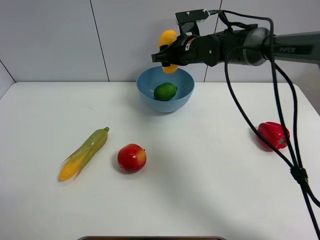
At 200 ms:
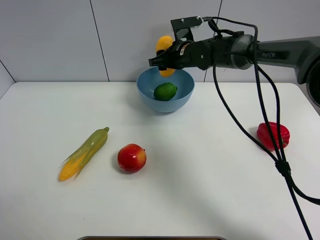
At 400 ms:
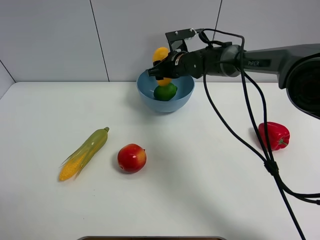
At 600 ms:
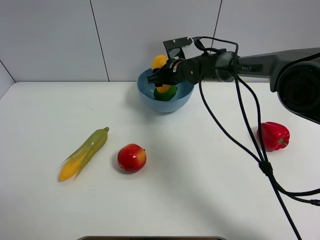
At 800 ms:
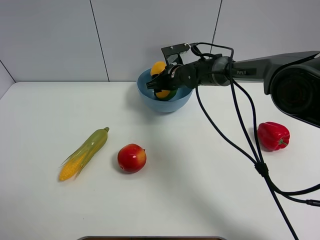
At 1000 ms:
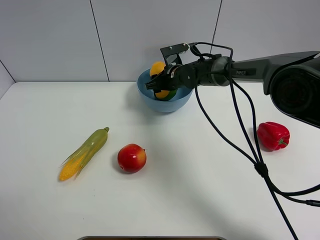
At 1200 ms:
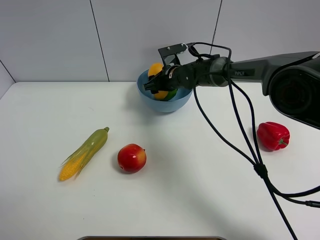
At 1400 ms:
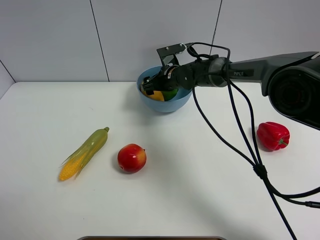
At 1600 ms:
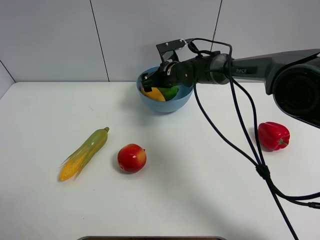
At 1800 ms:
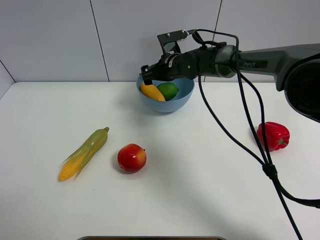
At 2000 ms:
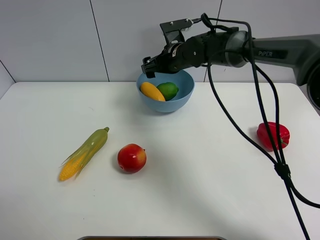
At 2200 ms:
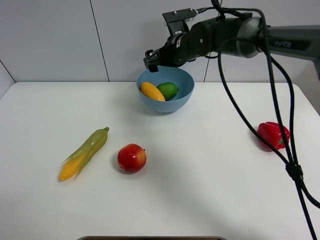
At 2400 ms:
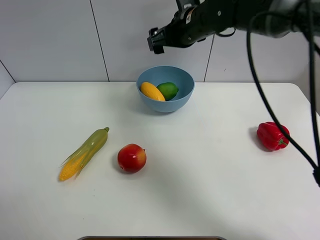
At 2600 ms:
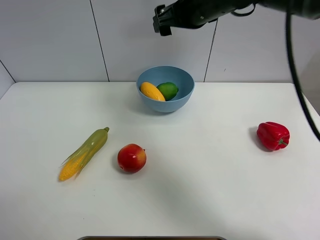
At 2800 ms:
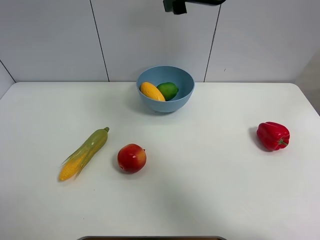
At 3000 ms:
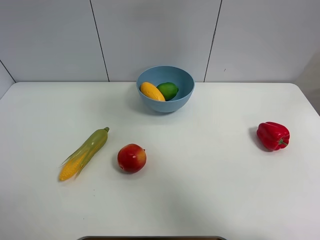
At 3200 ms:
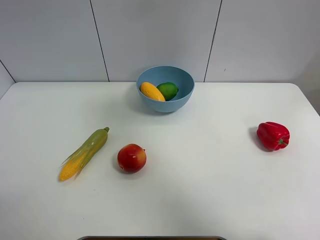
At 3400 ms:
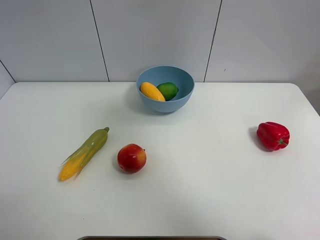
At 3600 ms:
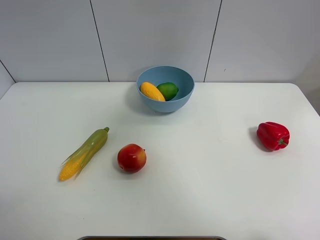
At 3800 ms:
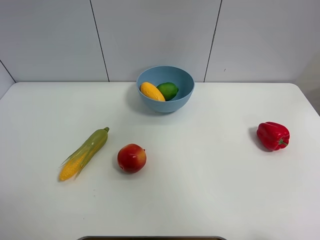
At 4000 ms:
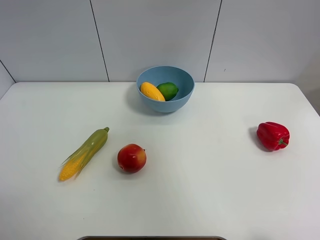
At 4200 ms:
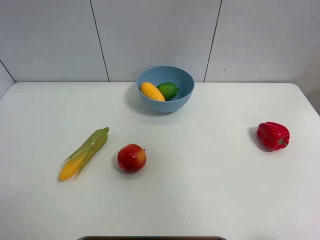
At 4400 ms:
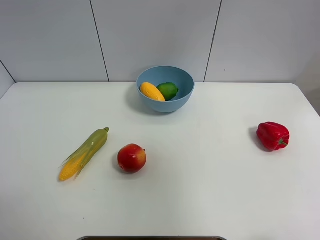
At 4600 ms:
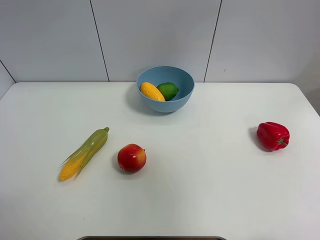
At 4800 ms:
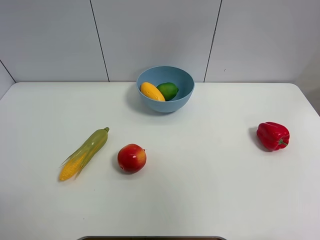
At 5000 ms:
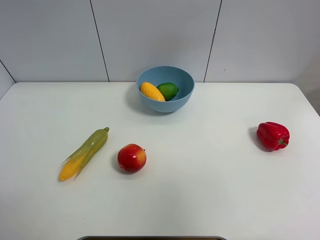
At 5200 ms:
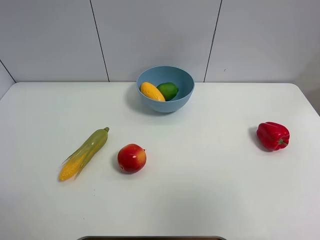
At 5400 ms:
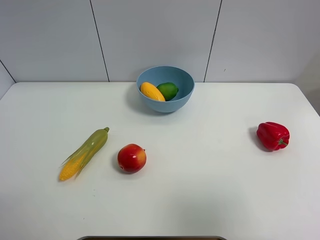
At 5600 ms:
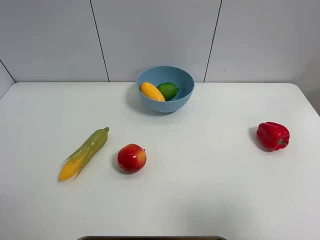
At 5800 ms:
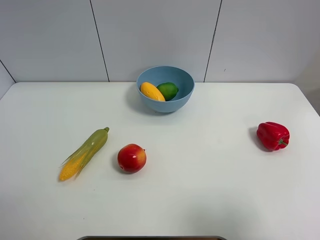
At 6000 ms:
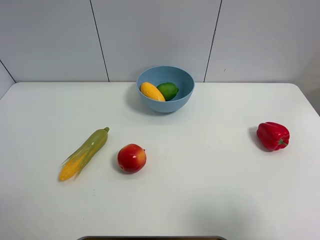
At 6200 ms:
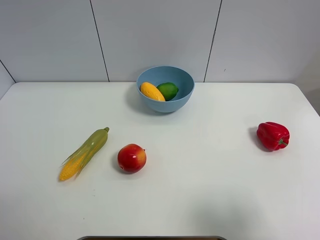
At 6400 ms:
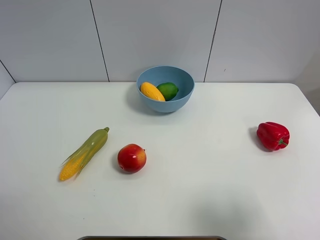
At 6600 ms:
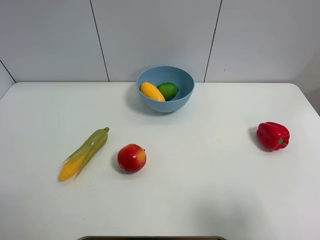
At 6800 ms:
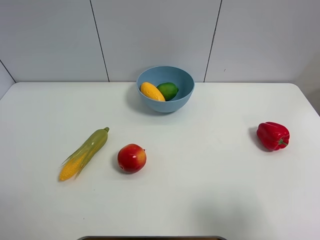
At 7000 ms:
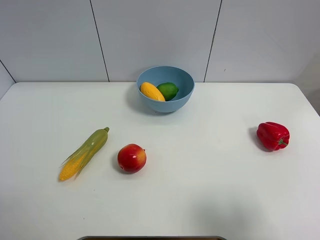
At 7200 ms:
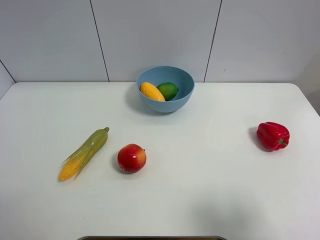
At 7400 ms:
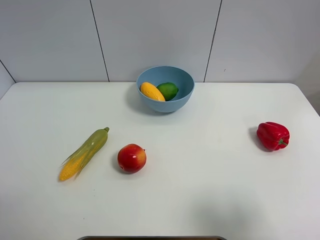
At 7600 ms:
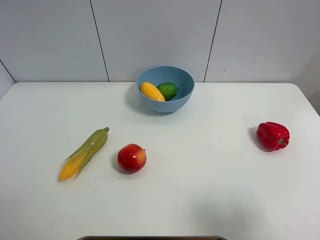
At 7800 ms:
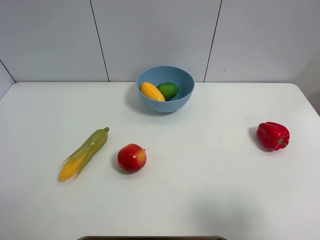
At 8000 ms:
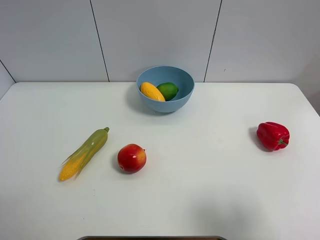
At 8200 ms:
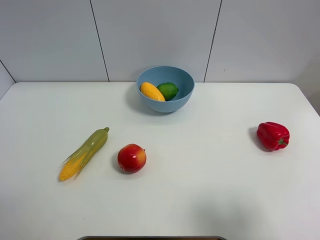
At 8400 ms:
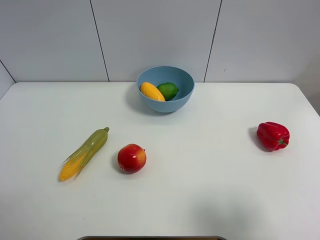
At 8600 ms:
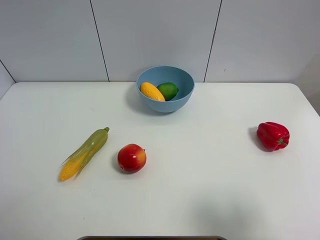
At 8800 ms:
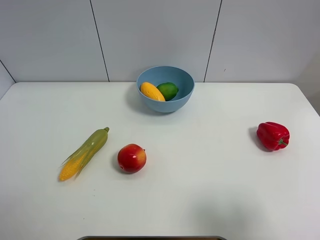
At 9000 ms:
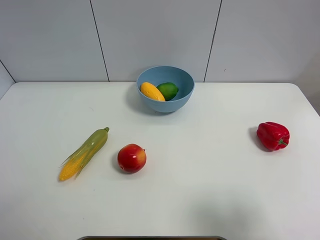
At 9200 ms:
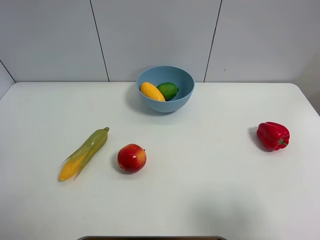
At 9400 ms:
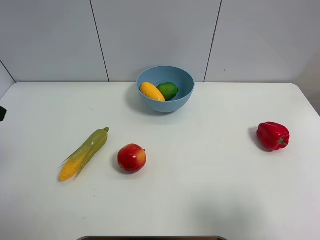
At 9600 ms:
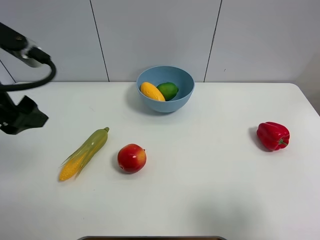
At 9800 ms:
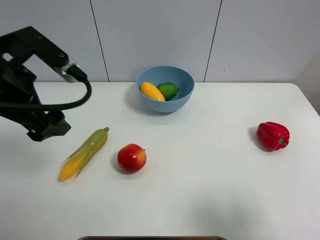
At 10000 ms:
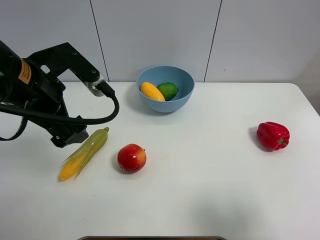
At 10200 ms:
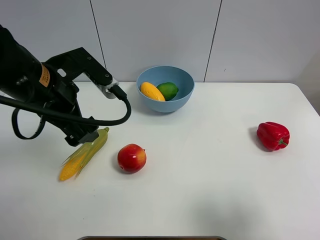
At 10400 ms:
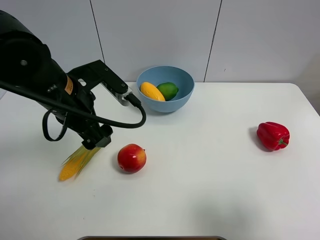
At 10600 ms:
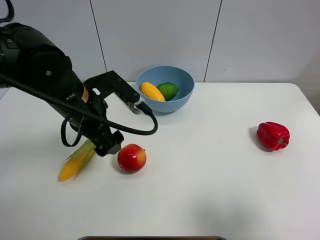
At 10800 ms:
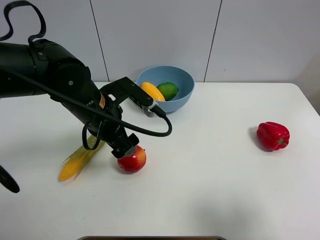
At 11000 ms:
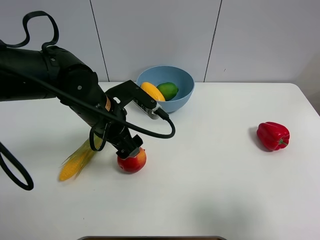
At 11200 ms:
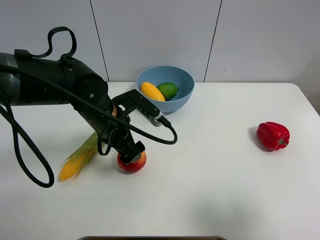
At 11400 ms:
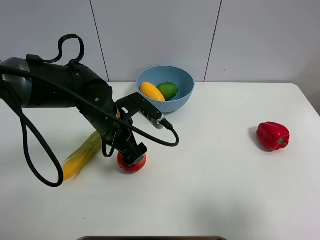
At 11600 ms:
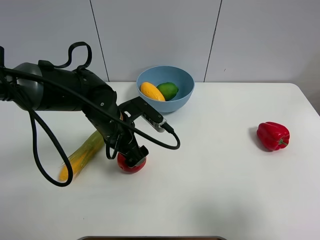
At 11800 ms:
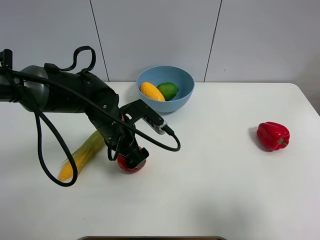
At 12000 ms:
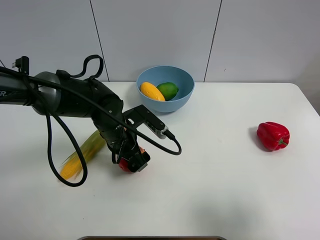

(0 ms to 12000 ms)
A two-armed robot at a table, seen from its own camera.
Task of the whole recording: Put the three fruits on the table into a bowl.
0 ms - 1600 ms: The right gripper moves downward, roughly 5 cm, and opens.
1600 ms - 3000 ms: The right gripper moves upward and backward, approximately 30 cm.
3000 ms - 4400 ms: The right gripper goes some 30 cm backward and to the right.
4400 ms - 6000 ms: The right gripper shifts roughly 25 cm downward.
6000 ms - 7600 ms: Both grippers stay put.
9000 ms - 10400 ms: The left gripper travels to the right, forward and downward by some 25 cm.
10400 ms - 12000 ms: The left gripper heads downward and to the right, covering about 15 cm.

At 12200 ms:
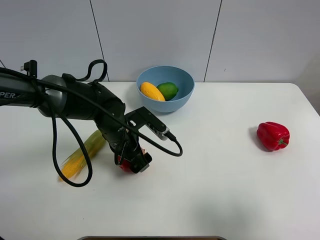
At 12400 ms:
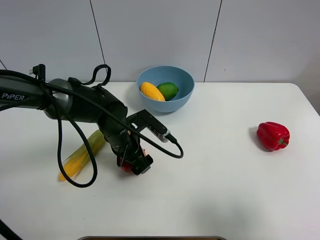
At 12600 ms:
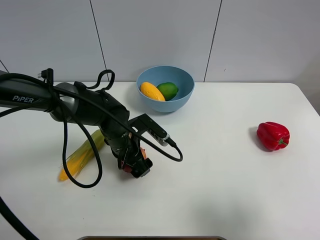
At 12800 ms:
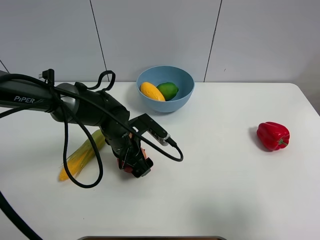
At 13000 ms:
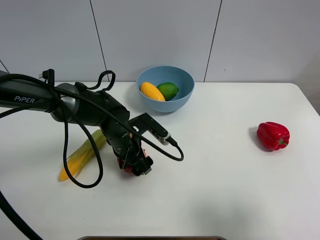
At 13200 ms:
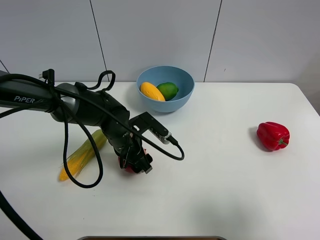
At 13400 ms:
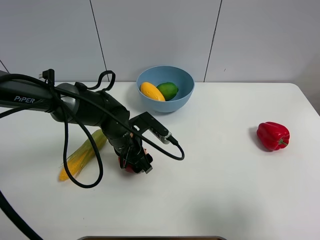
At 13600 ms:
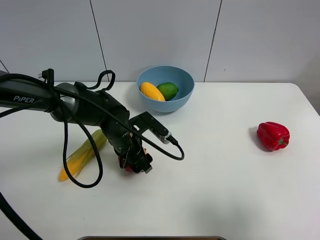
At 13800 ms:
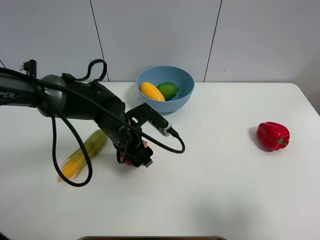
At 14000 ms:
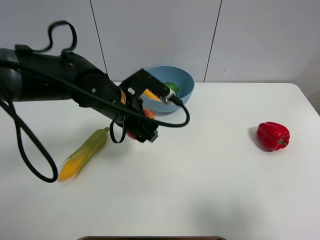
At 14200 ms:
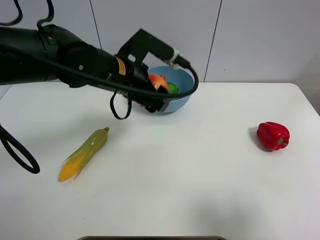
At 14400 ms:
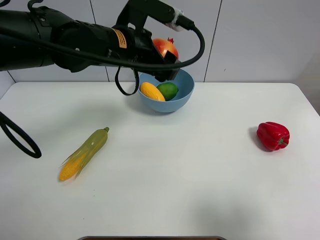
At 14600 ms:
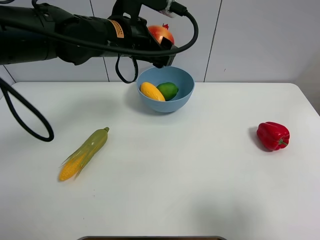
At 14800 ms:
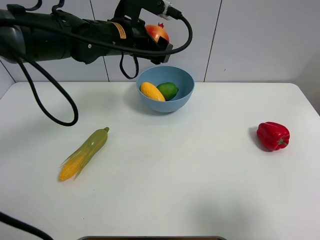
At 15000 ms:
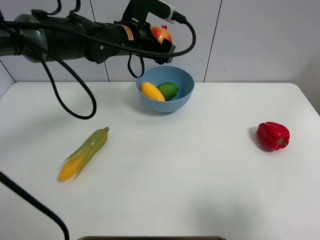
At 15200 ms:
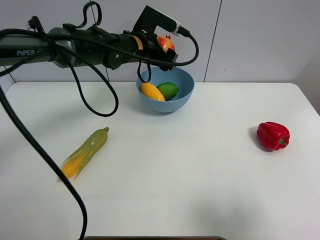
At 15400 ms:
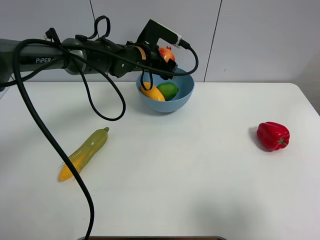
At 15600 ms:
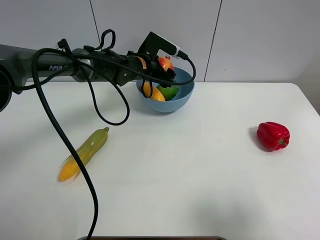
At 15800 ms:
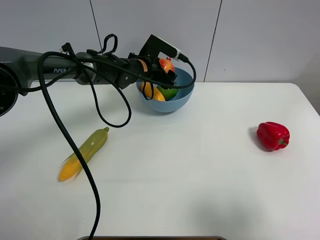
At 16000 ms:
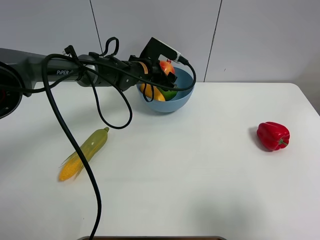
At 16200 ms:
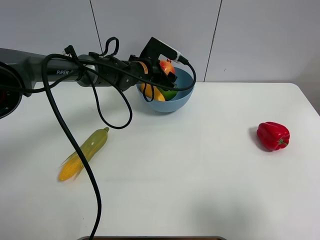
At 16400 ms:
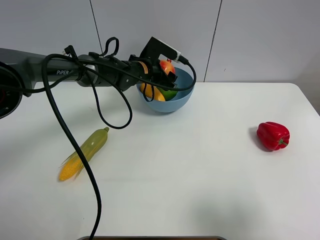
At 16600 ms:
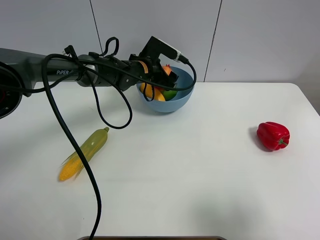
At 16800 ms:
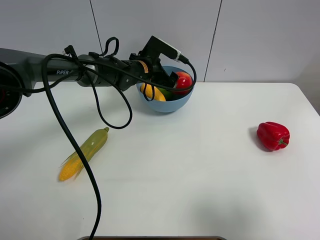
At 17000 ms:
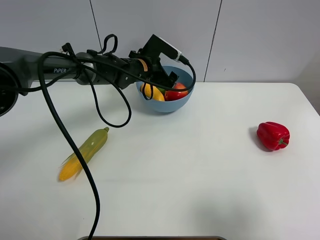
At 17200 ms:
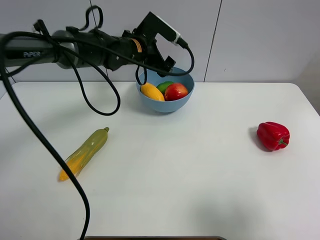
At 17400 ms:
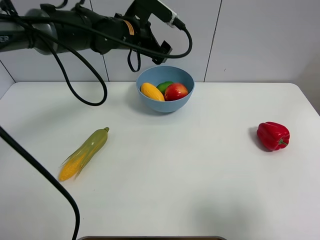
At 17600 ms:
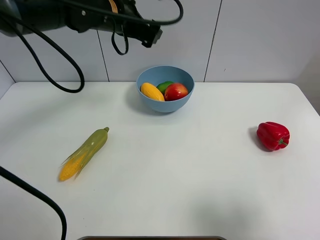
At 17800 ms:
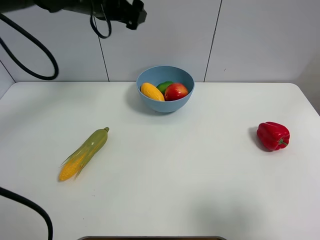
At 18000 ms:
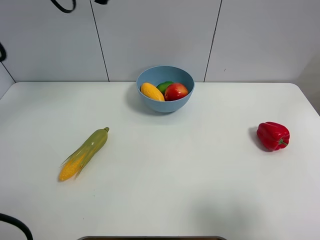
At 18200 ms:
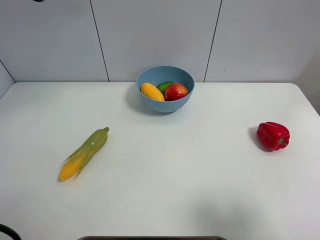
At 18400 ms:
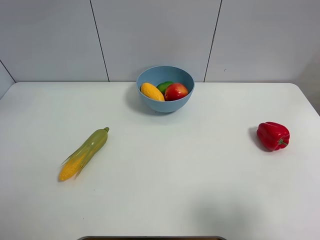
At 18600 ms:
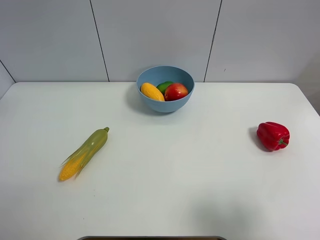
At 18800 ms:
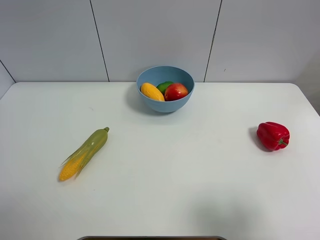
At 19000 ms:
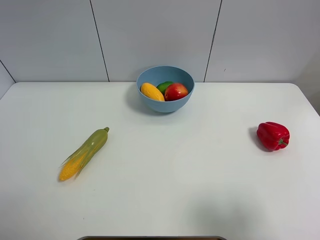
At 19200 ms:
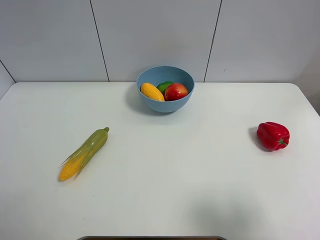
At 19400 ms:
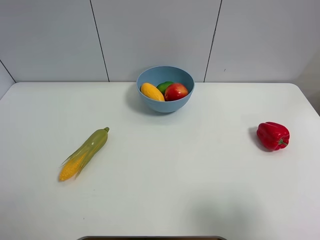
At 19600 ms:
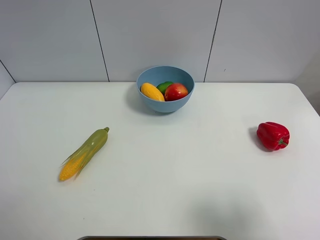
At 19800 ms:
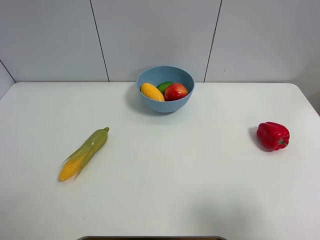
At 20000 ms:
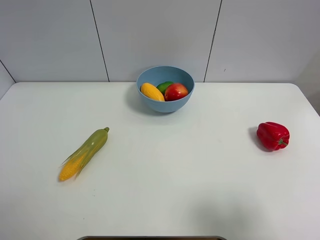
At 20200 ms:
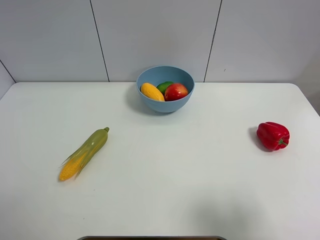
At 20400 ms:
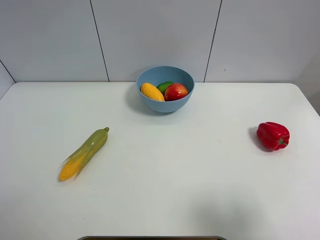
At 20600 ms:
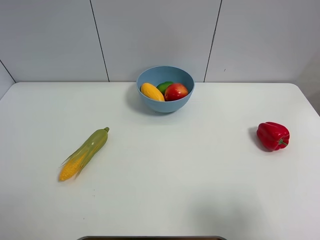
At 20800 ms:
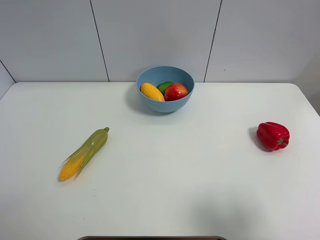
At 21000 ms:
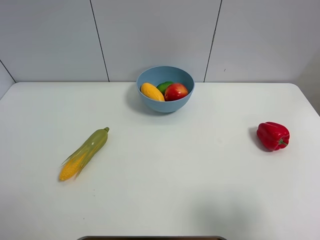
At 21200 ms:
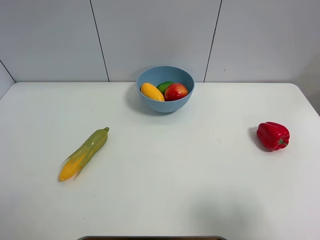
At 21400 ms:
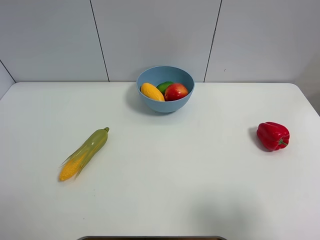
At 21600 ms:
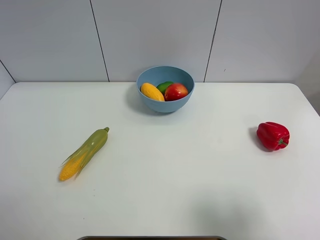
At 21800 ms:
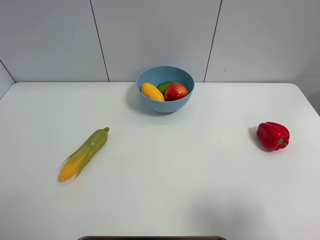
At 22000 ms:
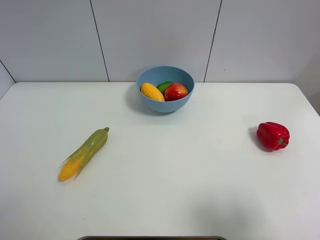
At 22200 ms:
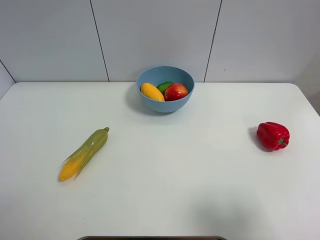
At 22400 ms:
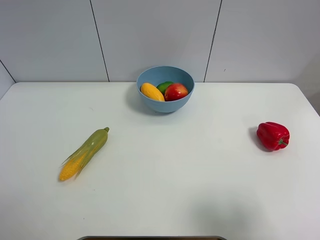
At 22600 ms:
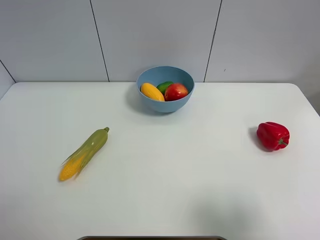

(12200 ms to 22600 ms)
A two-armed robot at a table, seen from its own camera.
Task of the whole recording: Put the three fruits on the table into a bowl.
Step, 13200 ms - 17000 ms: Place the pomegranate in the blue bowl with left gripper.
12200 ms - 13600 ms: The left gripper closes up.
13600 ms - 15200 ms: The left gripper travels forward and upward by roughly 20 cm.
15200 ms - 16600 ms: The left gripper is displaced downward by about 5 cm, and opens its fingers.
16600 ms - 18200 ms: The left gripper shifts some 30 cm upward and to the left.
18200 ms - 19600 ms: The left gripper goes about 30 cm backward and to the left.
21200 ms - 22600 ms: Neither gripper changes place.
